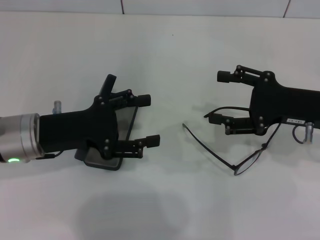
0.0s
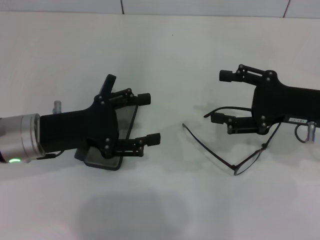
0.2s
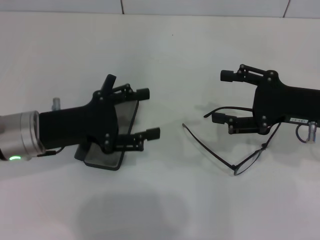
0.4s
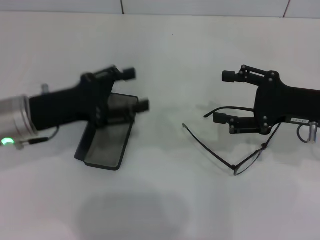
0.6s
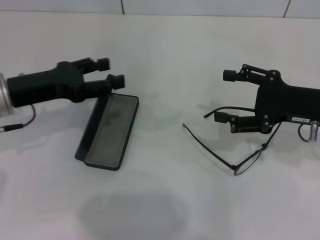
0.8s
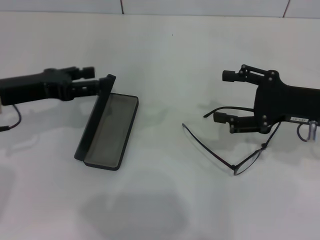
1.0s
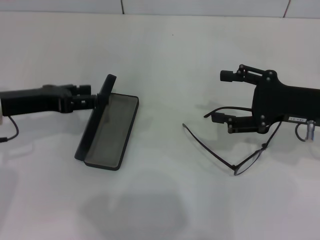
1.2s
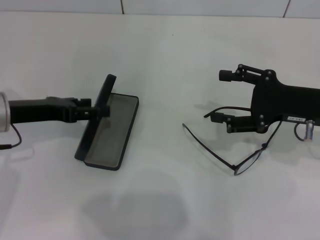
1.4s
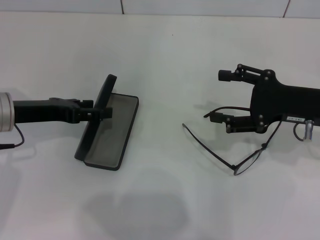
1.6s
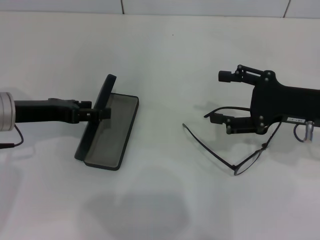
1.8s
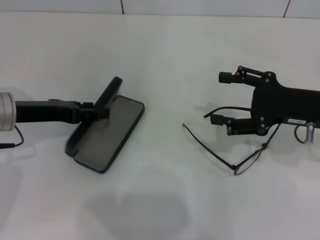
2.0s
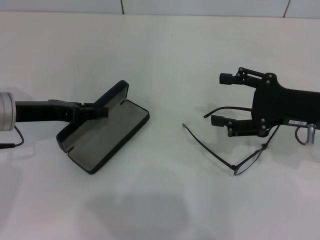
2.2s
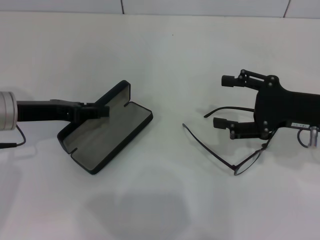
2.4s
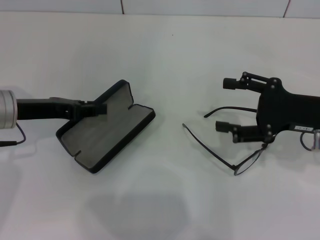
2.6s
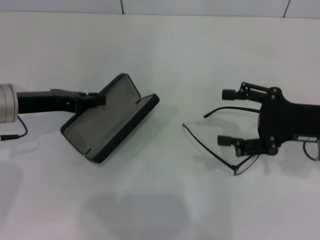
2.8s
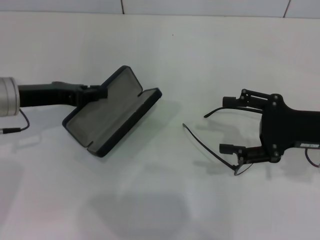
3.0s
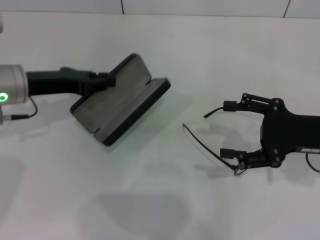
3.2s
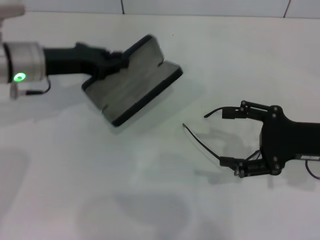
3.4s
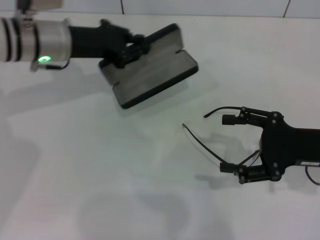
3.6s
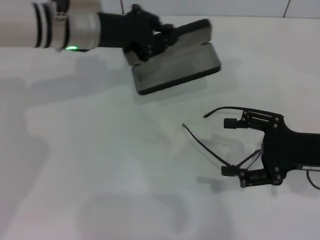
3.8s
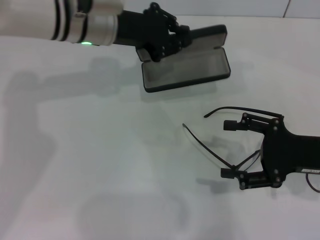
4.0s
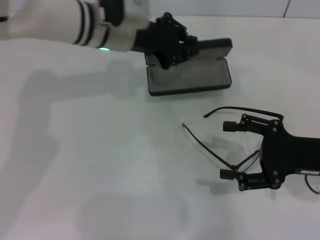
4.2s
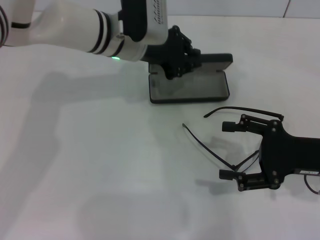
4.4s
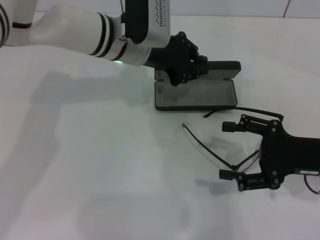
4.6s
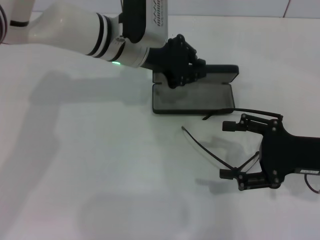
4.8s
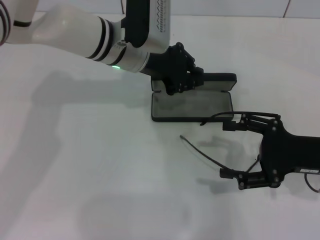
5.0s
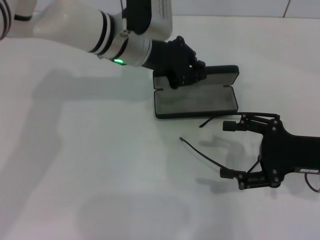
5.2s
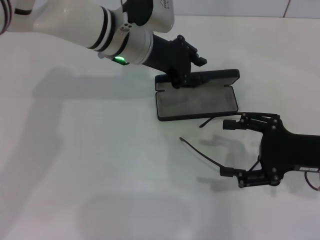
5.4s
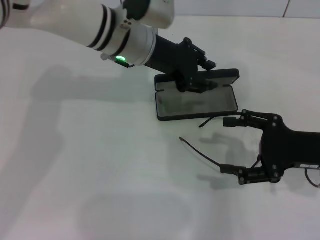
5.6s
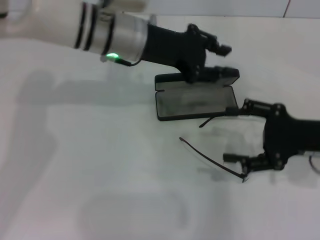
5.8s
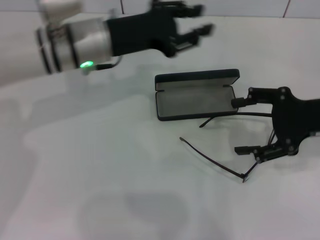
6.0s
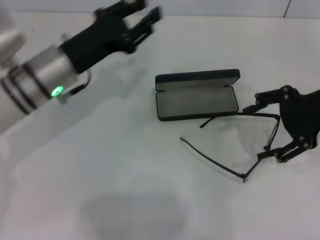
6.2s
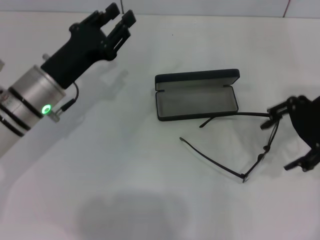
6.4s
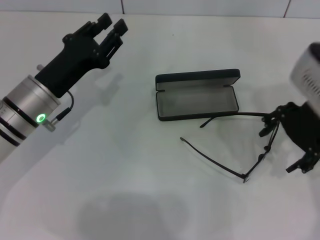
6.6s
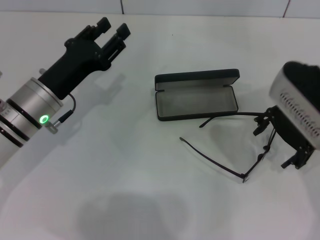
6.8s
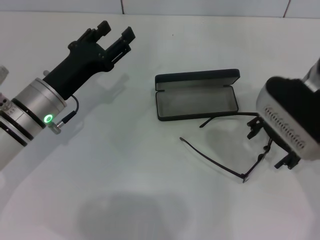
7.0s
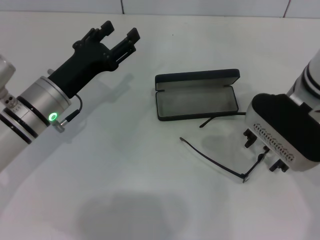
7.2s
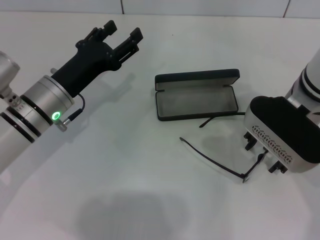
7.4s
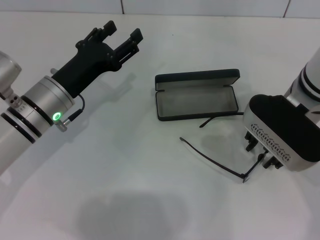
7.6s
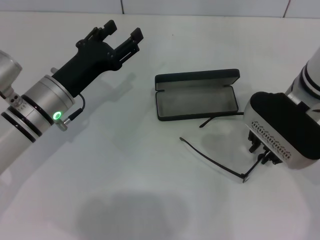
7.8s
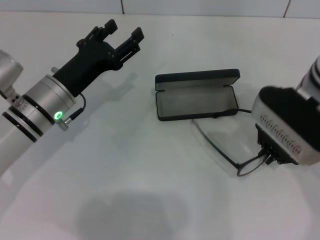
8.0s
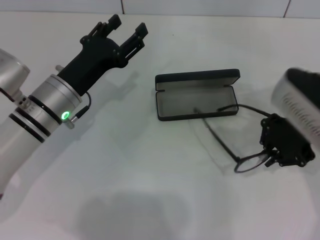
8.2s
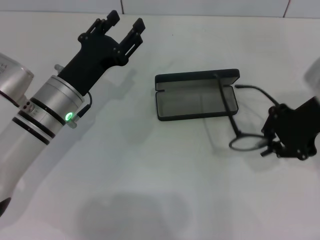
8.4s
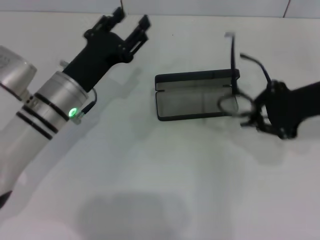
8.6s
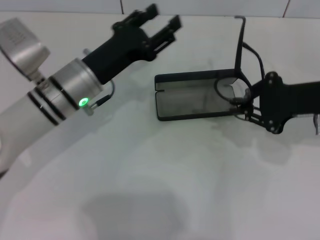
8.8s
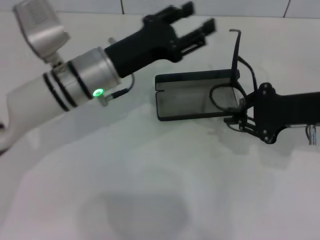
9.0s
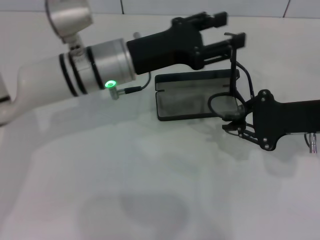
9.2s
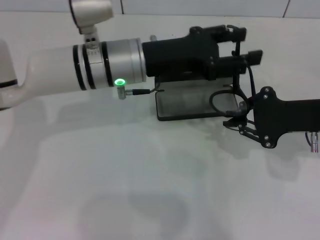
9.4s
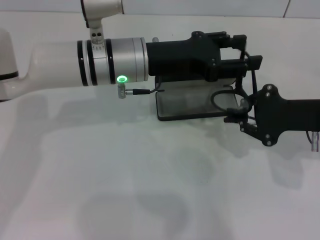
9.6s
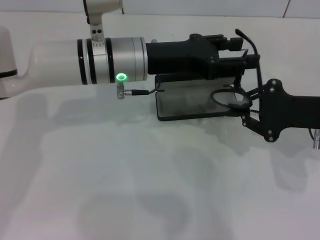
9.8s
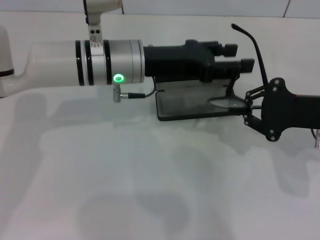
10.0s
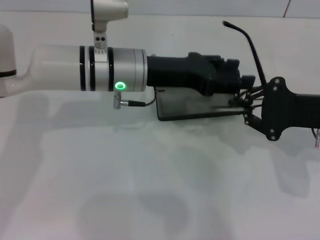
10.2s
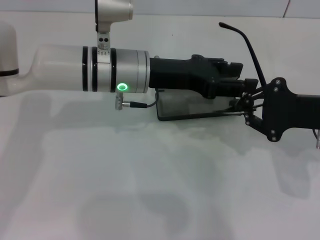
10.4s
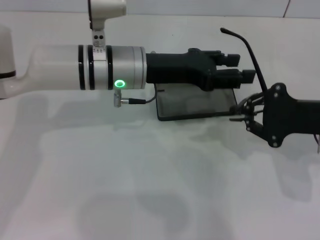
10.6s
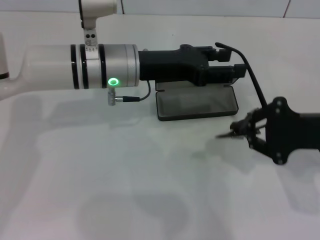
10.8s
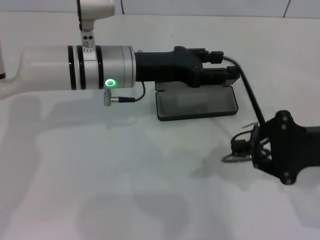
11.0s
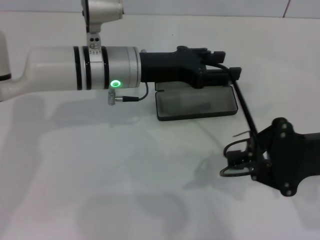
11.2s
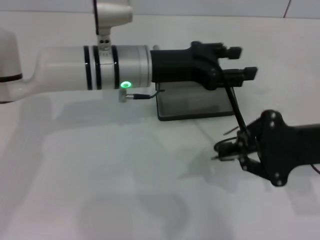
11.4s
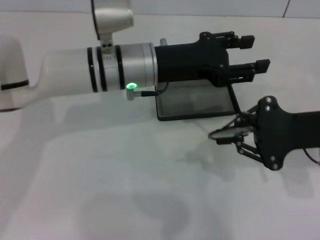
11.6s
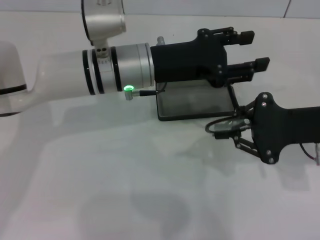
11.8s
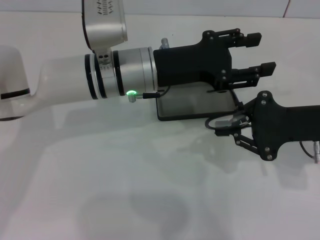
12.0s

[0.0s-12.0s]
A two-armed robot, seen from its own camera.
Step, 0.0s to 2.0s: Grab the glasses case with your left hand.
Step, 2.2s to 5.2s: Place the glasses case in the center of the table with your left hand.
Step, 5.6s to 7.8s: Grab the eyeglass frame with your right hand.
0.0s to 1.6s: The left gripper changes place by approximately 5 cm.
1.6s to 3.0s: The left gripper closes its fingers.
3.0s to 4.4s: The left gripper heads to the right and forward, covering roughly 20 cm.
4.4s to 6.0s: The left gripper heads to the left, covering some 5 cm; the right gripper shifts approximately 5 cm upward.
6.0s to 7.6s: The left gripper is displaced downward, backward and to the left by some 10 cm, and opens up. Meanwhile the right gripper goes about 10 cm to the left.
7.6s to 9.0s: The two grippers go some 10 cm to the right. The right gripper closes its fingers.

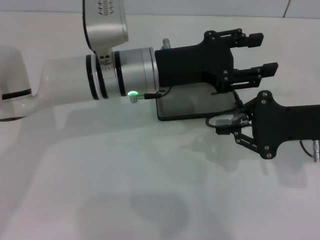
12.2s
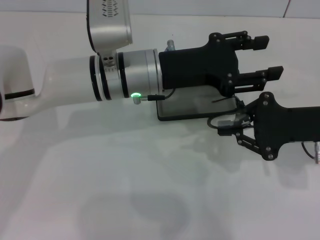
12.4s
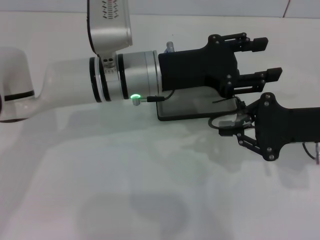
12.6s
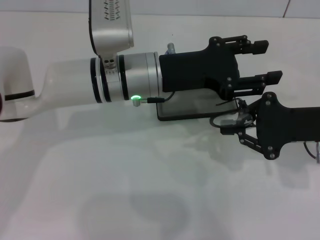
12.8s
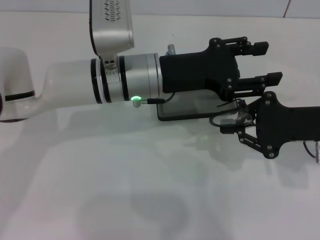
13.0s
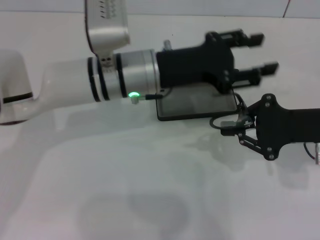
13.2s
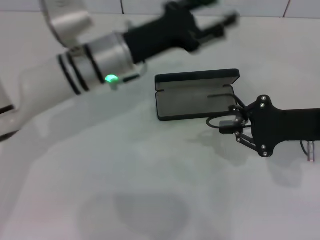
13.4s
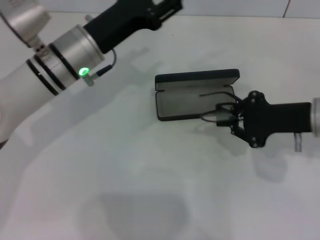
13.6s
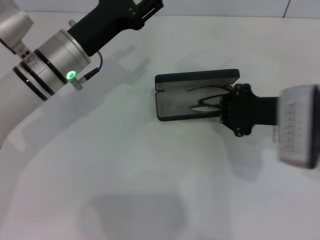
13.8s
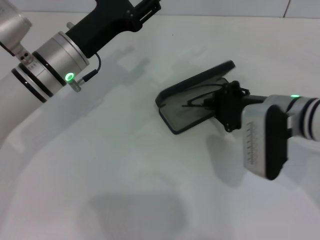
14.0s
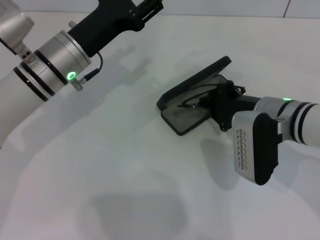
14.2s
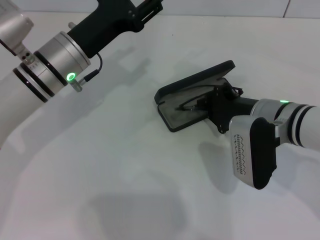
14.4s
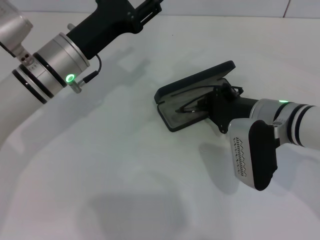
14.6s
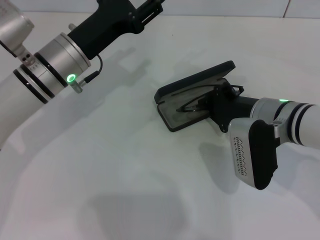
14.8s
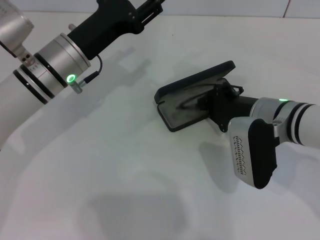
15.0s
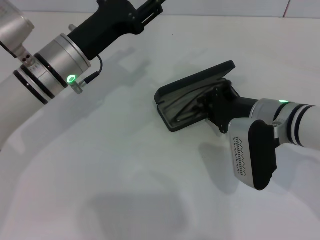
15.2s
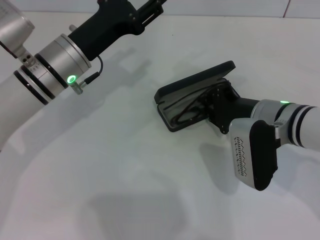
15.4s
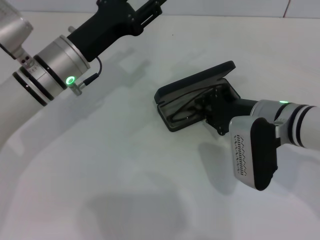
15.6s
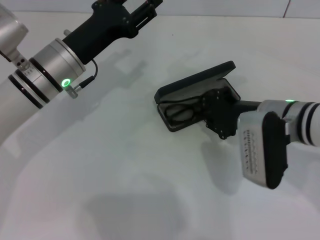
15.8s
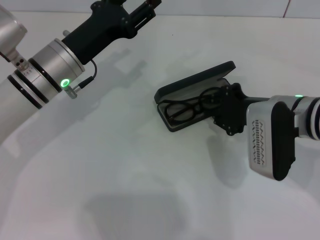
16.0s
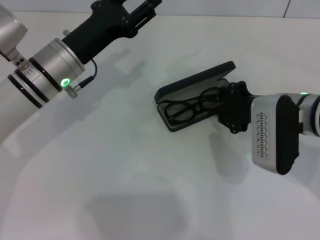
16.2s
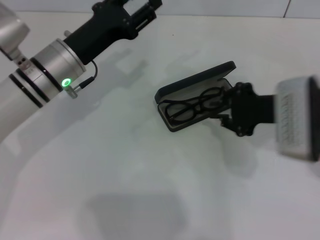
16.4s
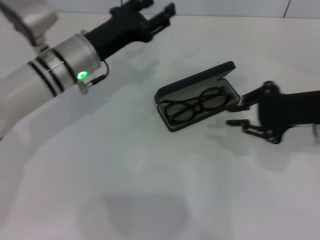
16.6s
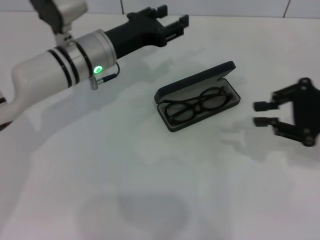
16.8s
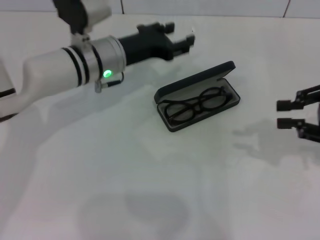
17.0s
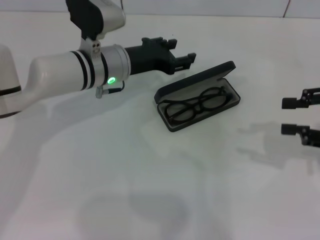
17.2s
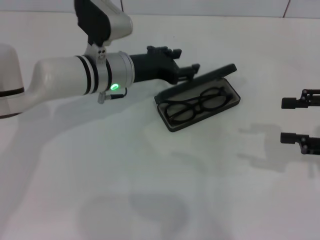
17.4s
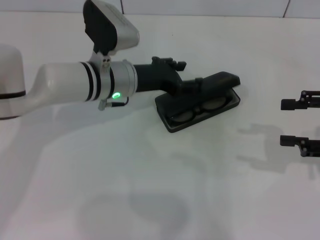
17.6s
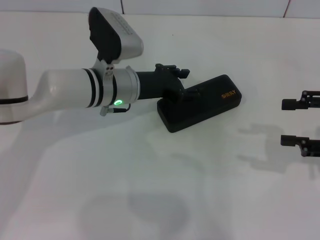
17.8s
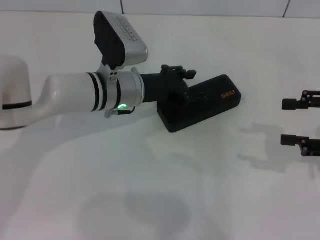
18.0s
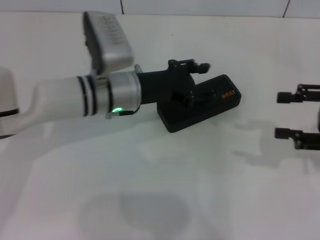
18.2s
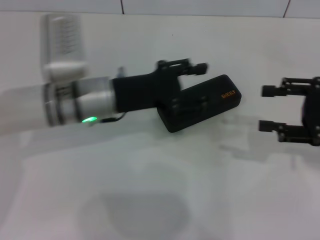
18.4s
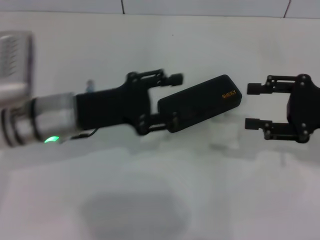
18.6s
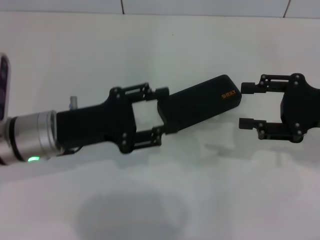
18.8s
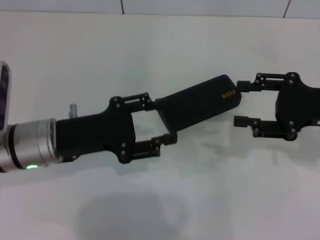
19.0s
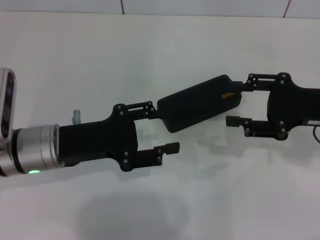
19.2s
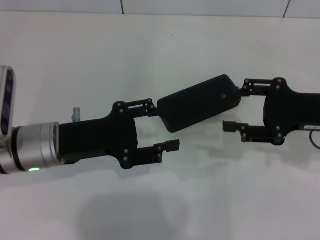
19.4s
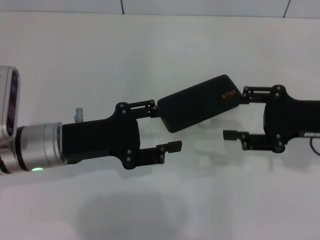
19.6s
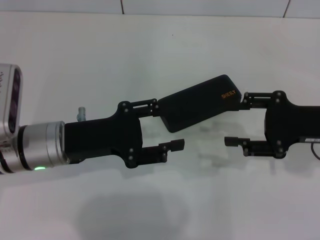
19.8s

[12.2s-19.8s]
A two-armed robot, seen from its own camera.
Step, 13.2s to 15.8s: Put the glasses into the case with your right hand.
Step, 16.2s to 18.0s: Close the glasses case with your left hand.
12.2s to 13.8s: The right gripper moves some 5 cm; the left gripper is displaced to the left by about 10 cm.
13.8s to 15.2s: The right gripper shifts by some 5 cm.
15.2s to 16.8s: The right gripper moves to the right and upward, about 15 cm.
16.8s to 18.2s: The right gripper opens its fingers, while the left gripper moves about 5 cm.
18.2s to 19.8s: The left gripper moves to the left and backward, some 10 cm, while the right gripper heads to the left, covering approximately 5 cm.

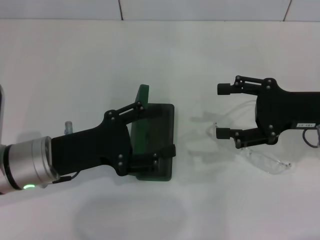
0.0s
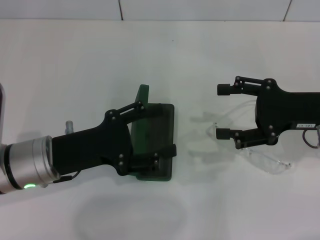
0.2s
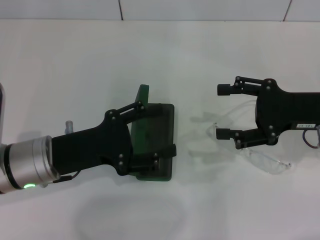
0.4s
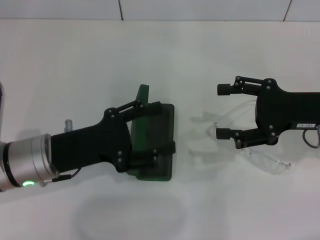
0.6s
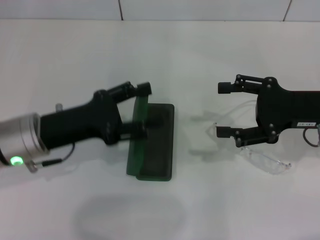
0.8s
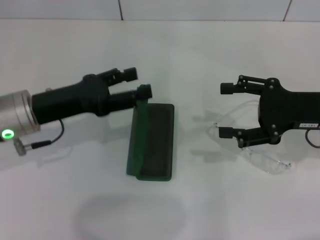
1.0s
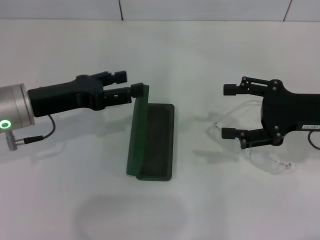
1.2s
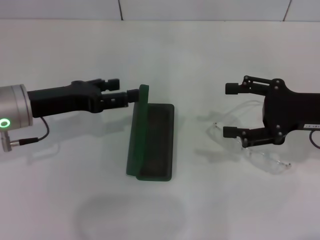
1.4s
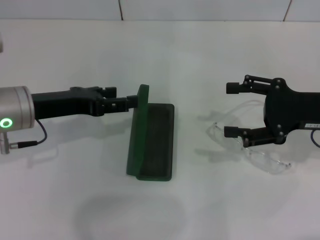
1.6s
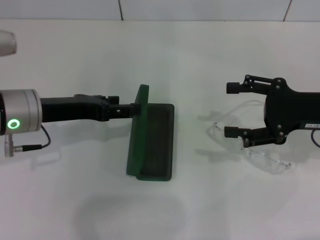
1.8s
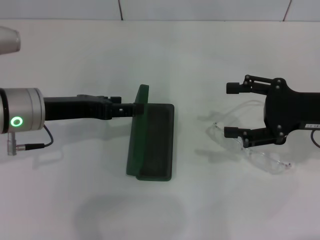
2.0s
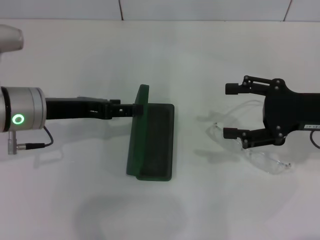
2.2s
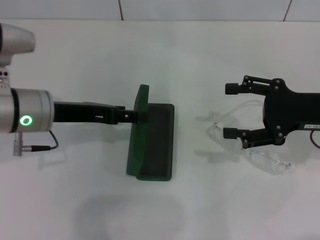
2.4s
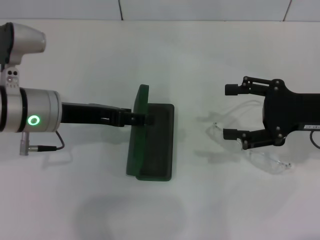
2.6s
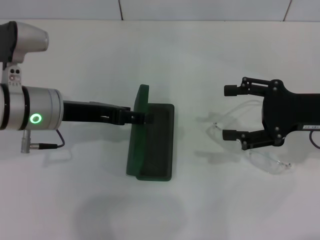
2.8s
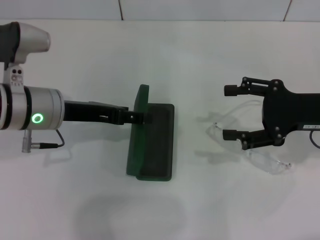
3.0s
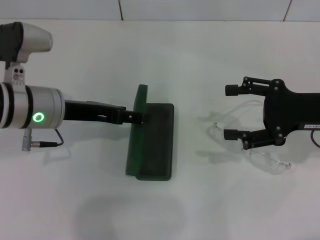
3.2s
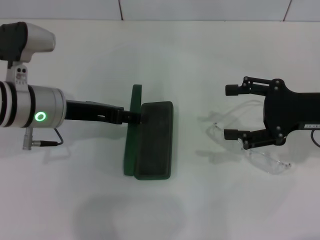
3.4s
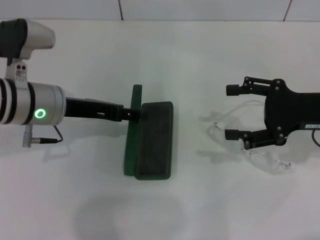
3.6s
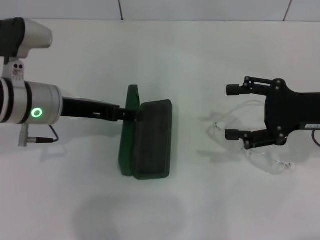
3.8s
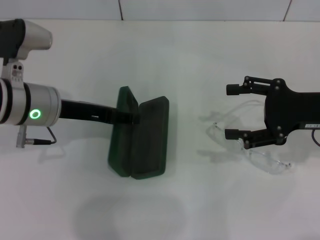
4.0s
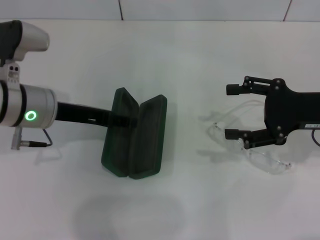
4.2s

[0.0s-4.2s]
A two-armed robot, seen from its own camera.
0.0s to 1.4s: The left gripper travels forward by some 5 cm.
1.4s to 2.8s: There are only small adjustments of the grippers.
2.8s to 4.2s: The grippers move only a little.
